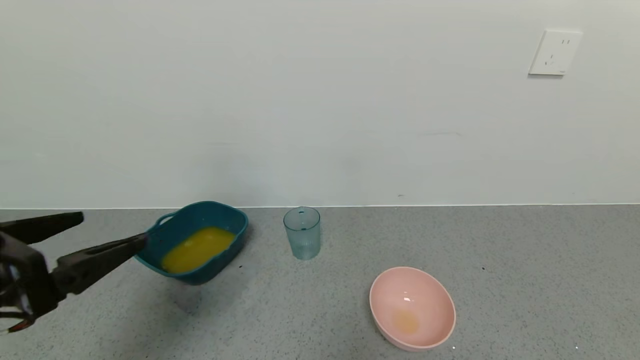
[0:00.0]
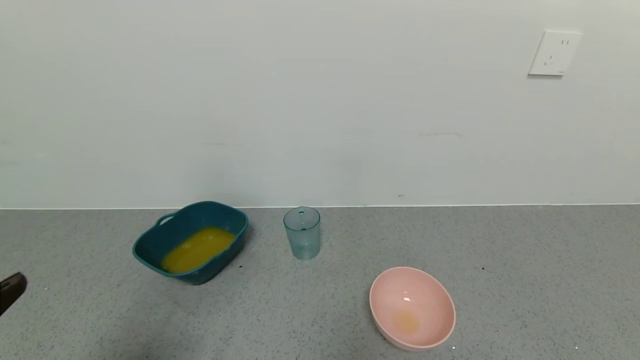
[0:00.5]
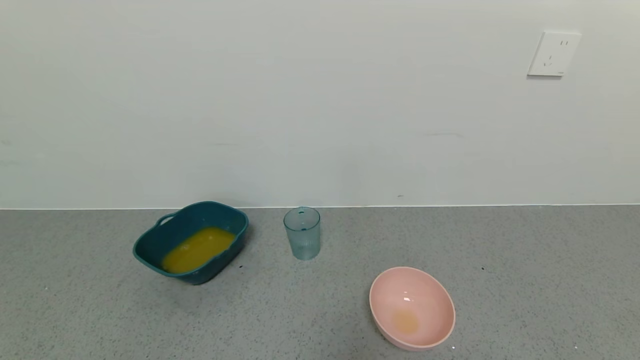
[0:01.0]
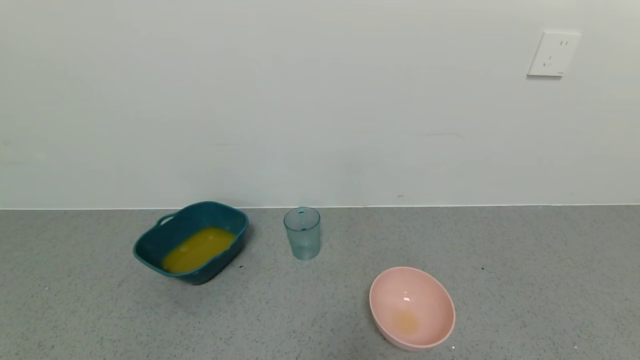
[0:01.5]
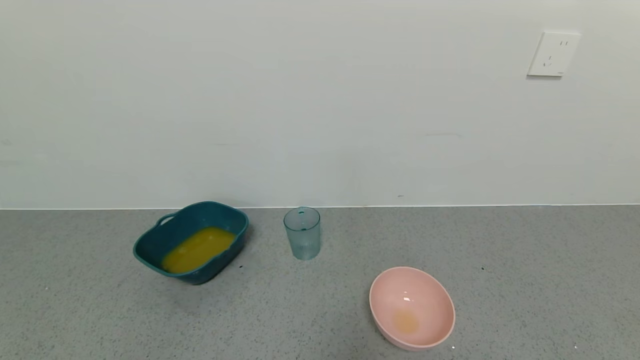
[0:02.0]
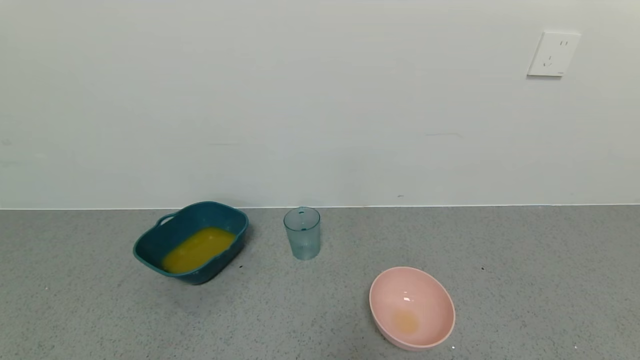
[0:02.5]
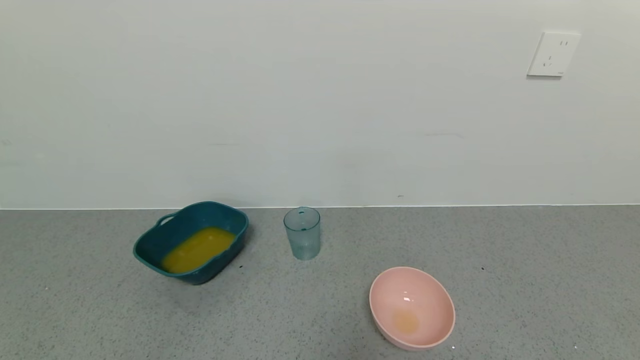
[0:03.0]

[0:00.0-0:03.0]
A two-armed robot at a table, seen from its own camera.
Task of the whole recording: use a gripper to pick up the cup and pour the liquid into a bowl or tray.
0:00.0 to 0:01.5: The left gripper is displaced backward and downward by some 20 cm.

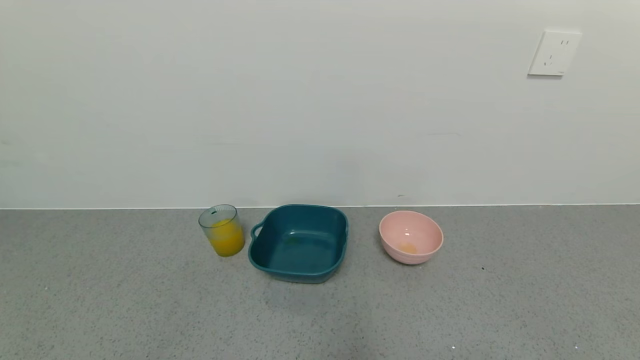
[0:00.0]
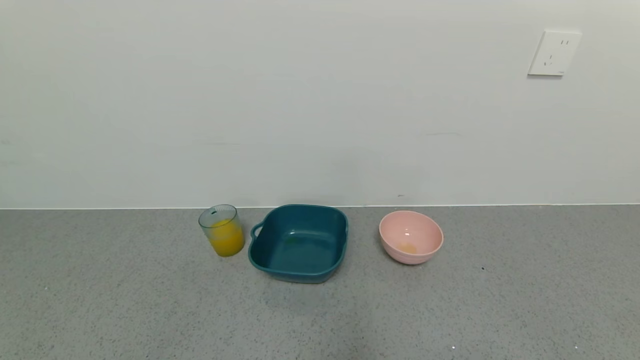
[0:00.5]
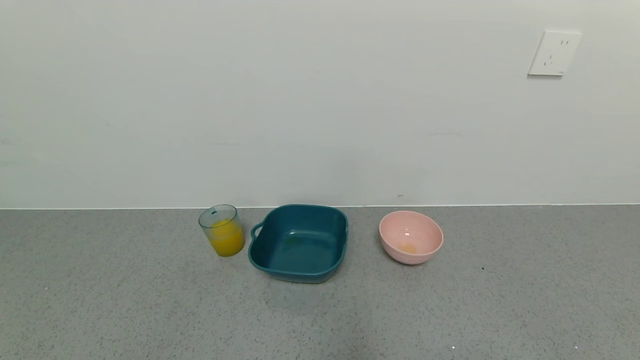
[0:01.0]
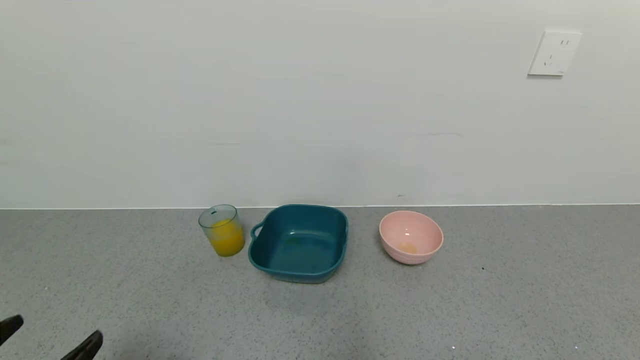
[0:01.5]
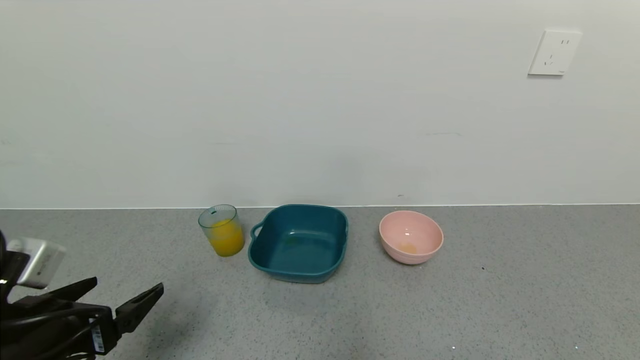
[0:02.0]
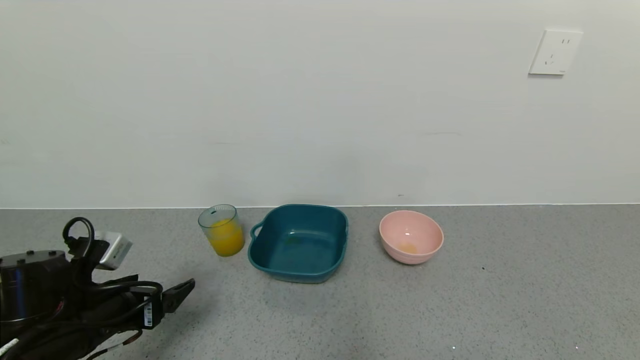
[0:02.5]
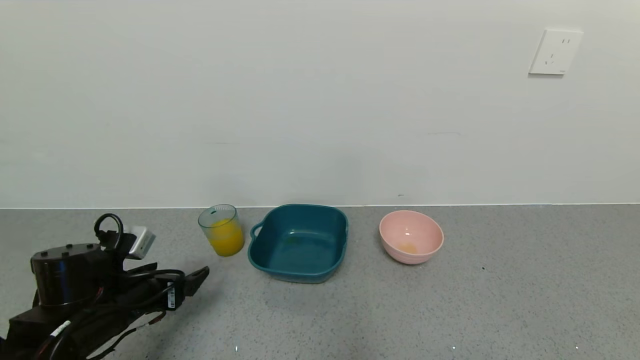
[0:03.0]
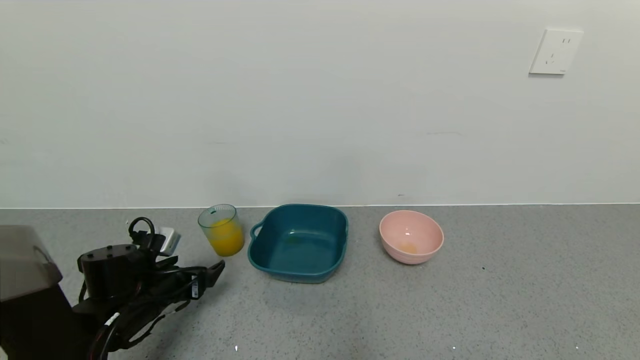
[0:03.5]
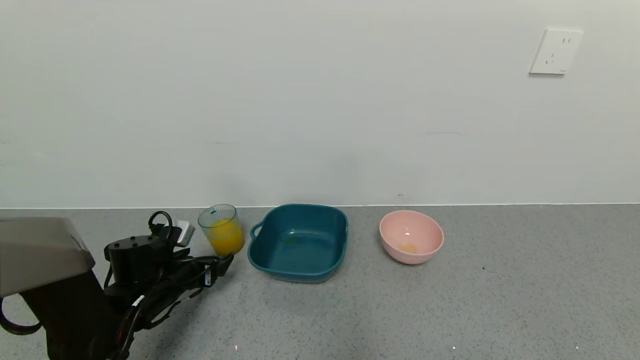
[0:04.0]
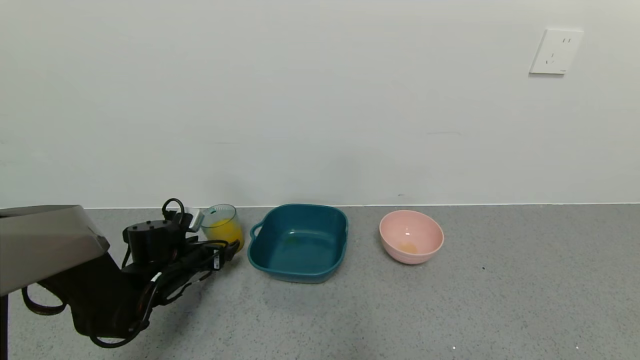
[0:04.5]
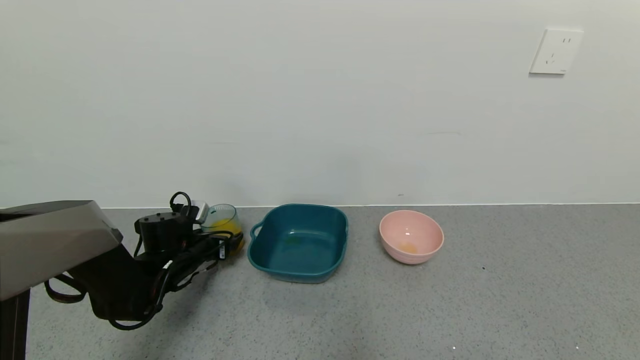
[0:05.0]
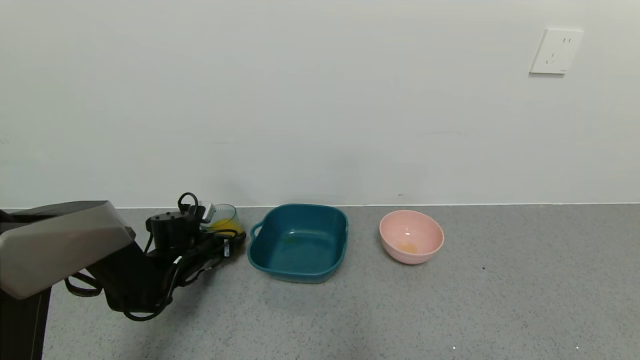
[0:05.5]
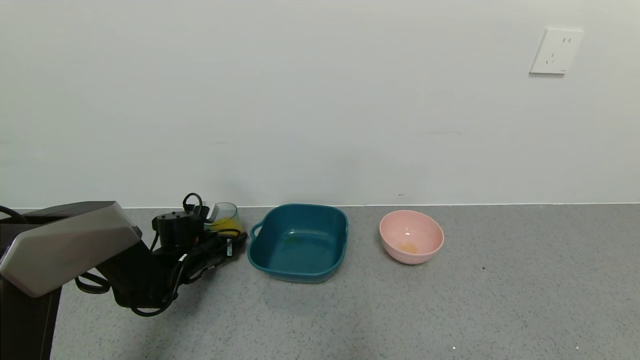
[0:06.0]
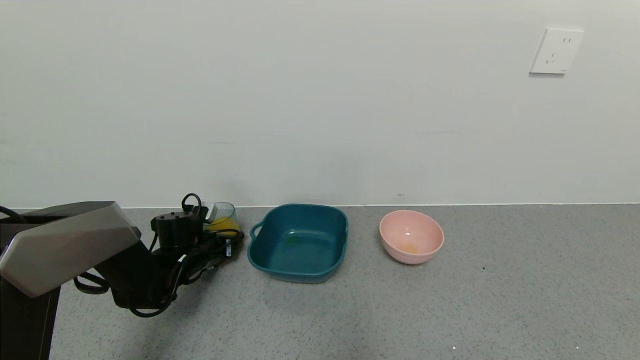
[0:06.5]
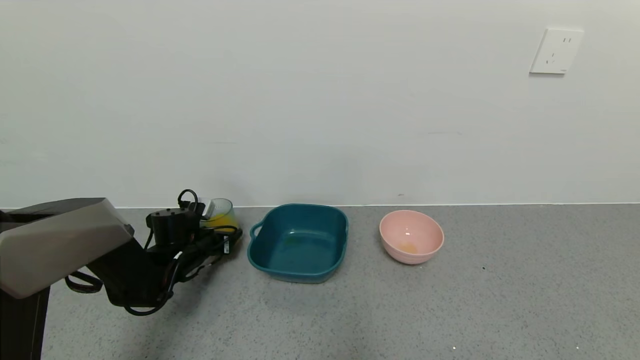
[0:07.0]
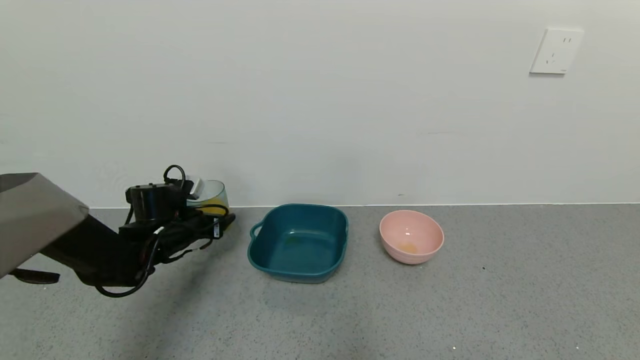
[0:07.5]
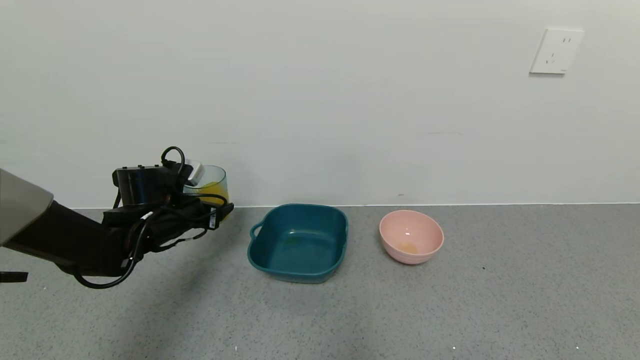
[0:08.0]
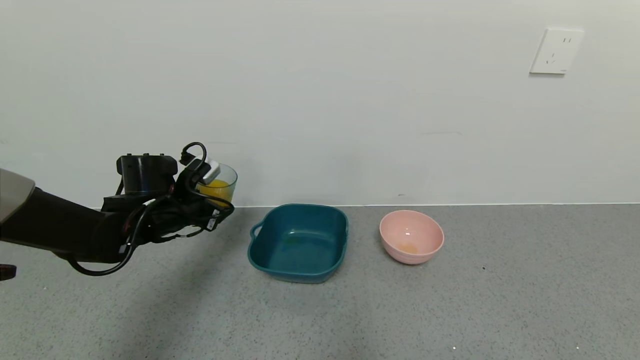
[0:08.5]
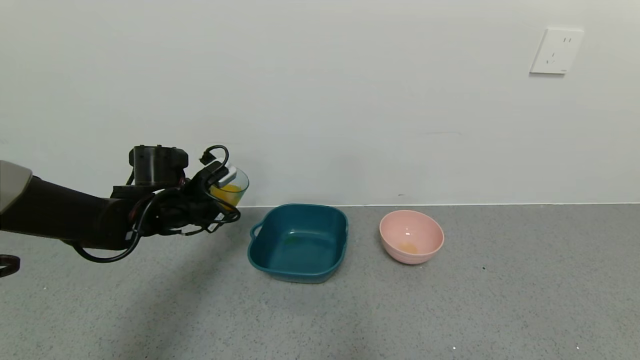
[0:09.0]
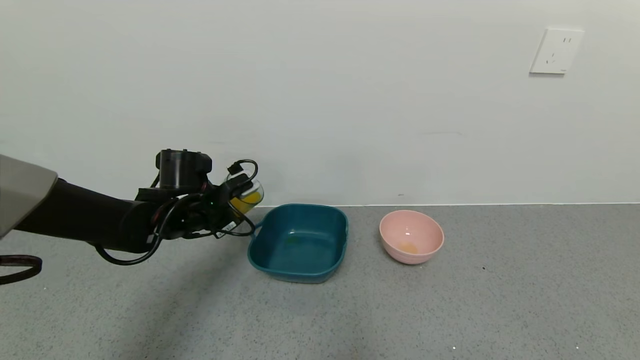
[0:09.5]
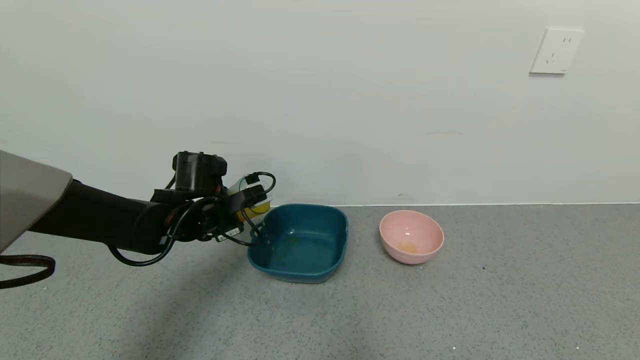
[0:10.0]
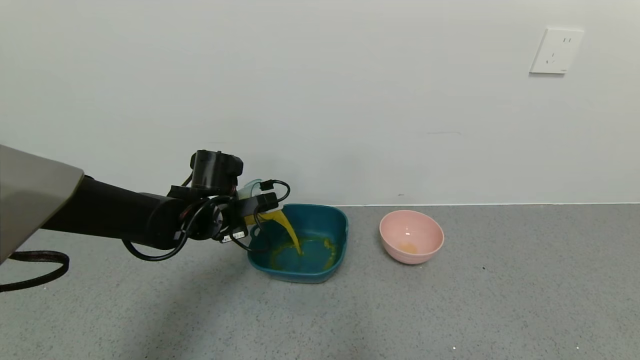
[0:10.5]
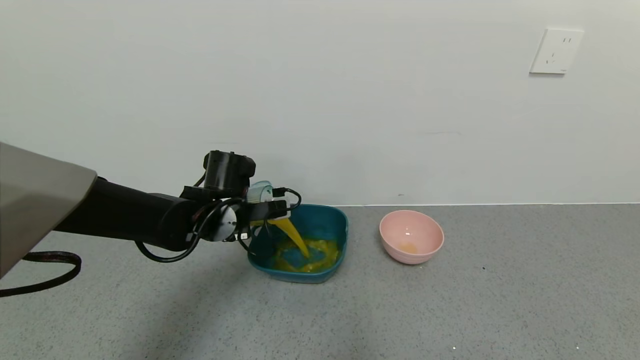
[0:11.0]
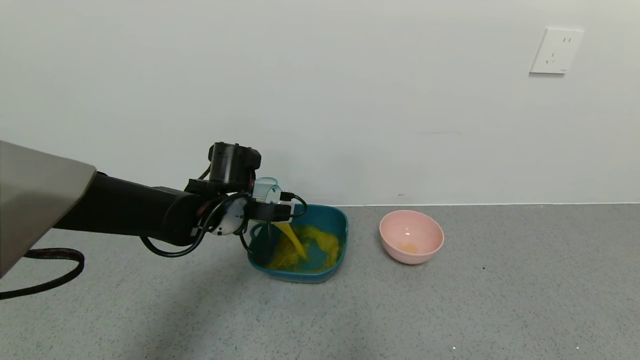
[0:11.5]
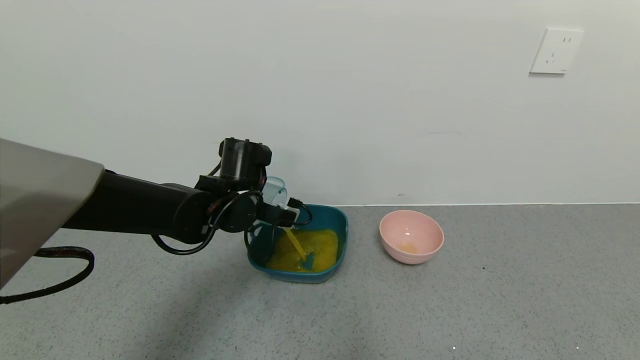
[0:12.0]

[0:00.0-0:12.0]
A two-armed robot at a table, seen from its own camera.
Task of the whole recording: use a gripper to pick up the cup and pour the liquid into a bowl or tray.
Step, 0:00.0 to 0:05.5: Pick up blue cup filled with orange juice with left gripper.
Step, 0:06.0 to 0:09.5: Pour the orange juice into the blue basin with left gripper.
0:00.0 to 0:02.0: The left gripper is displaced forward and upward by approximately 15 cm.
0:02.0 to 0:04.0: The left gripper moves forward and downward, some 20 cm.
0:04.0 to 0:06.0: The left gripper moves forward, roughly 10 cm.
0:06.0 to 0:08.0: The left gripper travels upward by about 10 cm, and closes its fingers.
0:08.0 to 0:10.0: The left gripper heads to the right, covering some 5 cm.
0:10.0 to 0:12.0: The left gripper goes roughly 5 cm to the right.

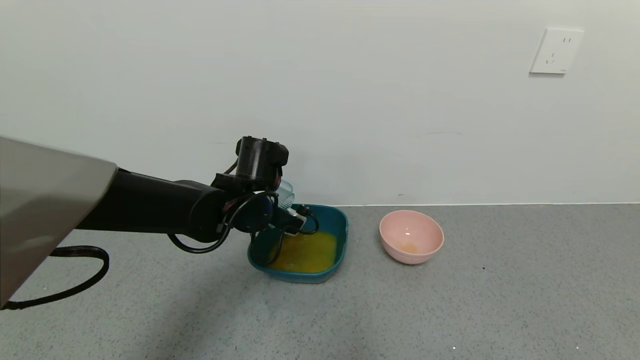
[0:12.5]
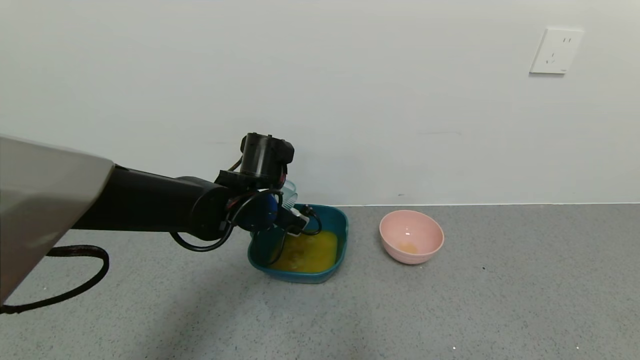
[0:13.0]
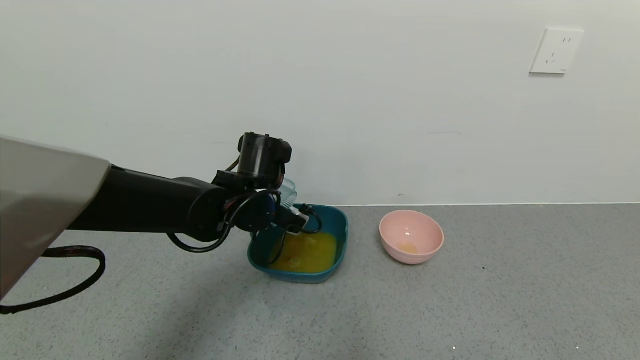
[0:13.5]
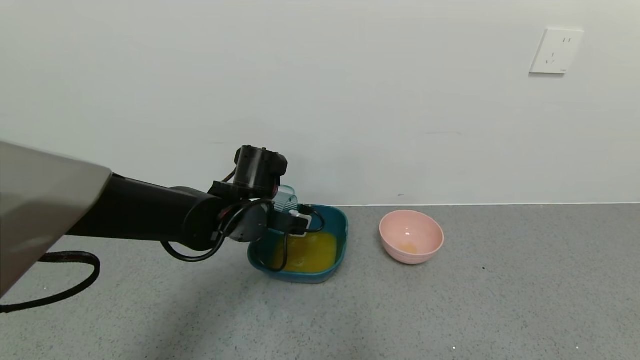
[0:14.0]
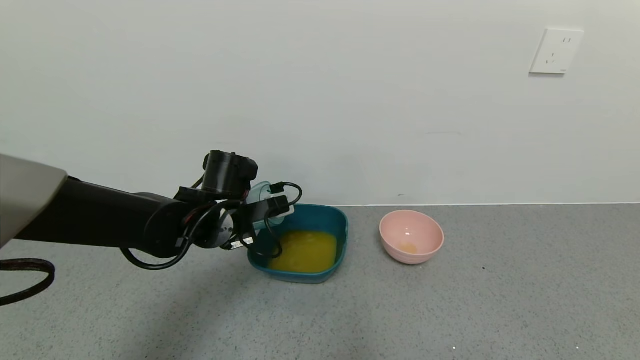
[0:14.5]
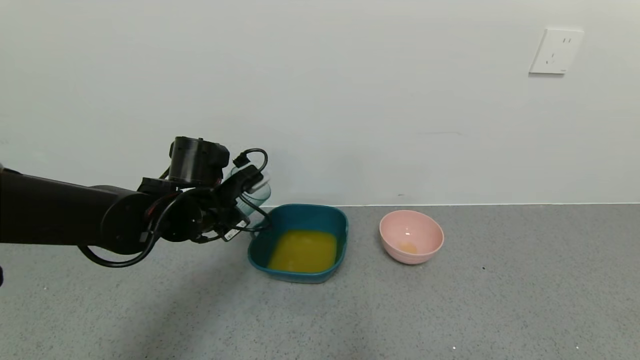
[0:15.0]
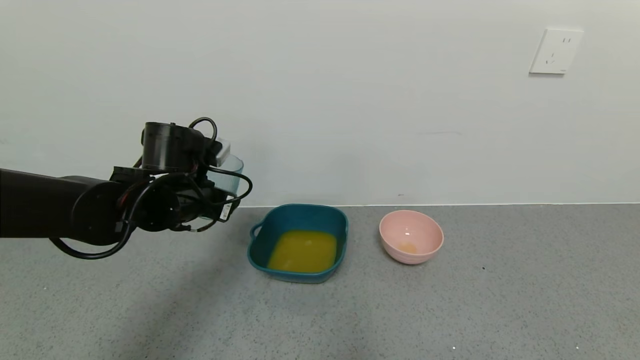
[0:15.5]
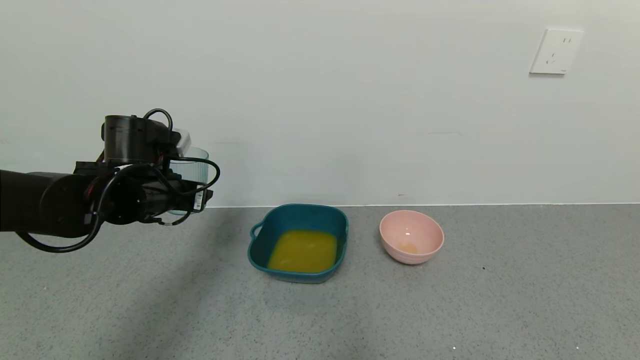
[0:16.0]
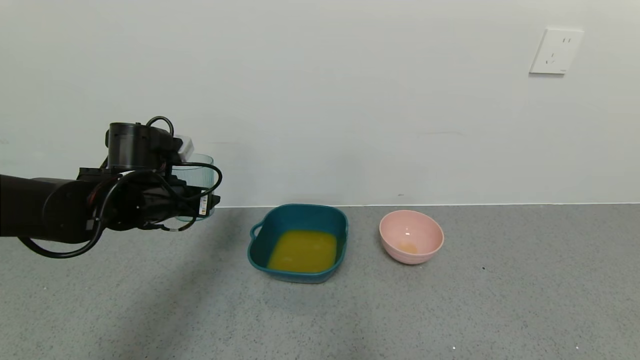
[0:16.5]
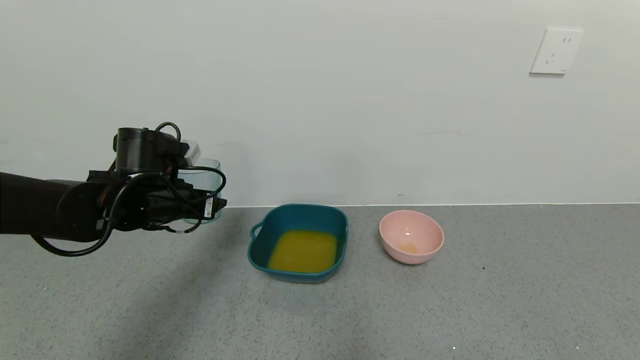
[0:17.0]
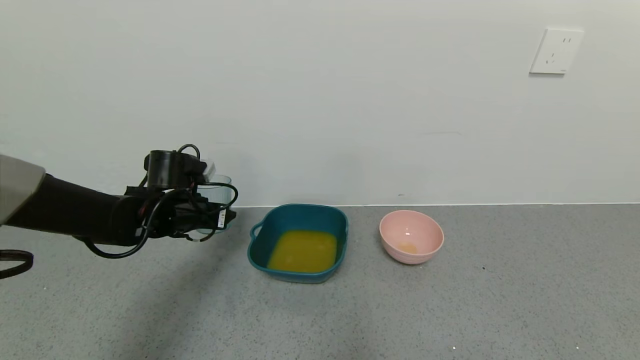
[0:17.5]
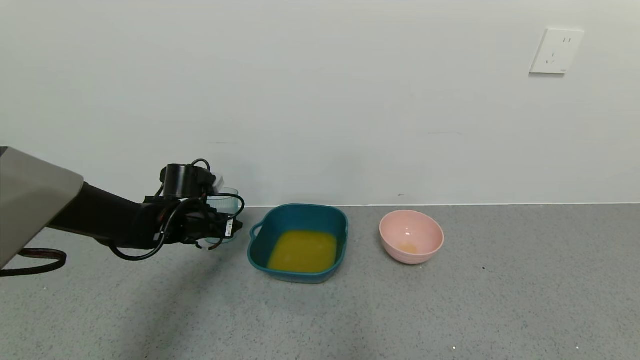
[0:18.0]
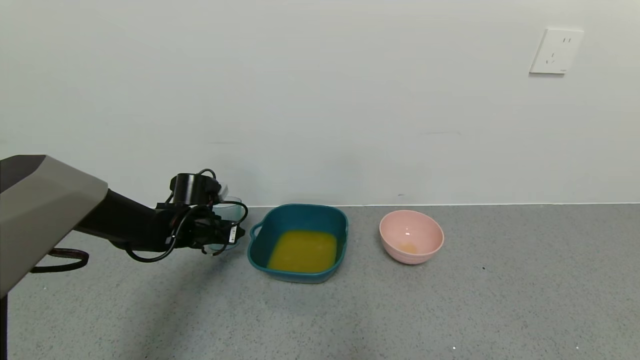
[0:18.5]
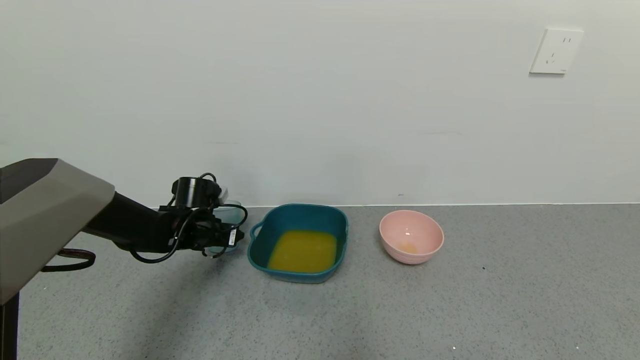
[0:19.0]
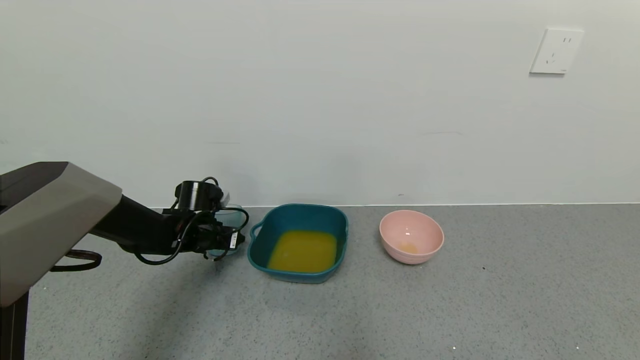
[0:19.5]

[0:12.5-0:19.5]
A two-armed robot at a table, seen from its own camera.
Task of the whole recording: use a gripper to pick up the cup and pour the liquid into a bowl or tray.
0:12.5 to 0:14.5: The left gripper changes place by roughly 5 cm.
0:14.5 to 0:16.0: The left gripper heads to the left, covering approximately 10 cm.
0:16.0 to 0:17.5: The left gripper moves downward, approximately 5 cm.
0:17.5 to 0:19.5: The left gripper travels downward by some 5 cm.
